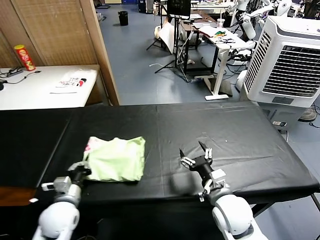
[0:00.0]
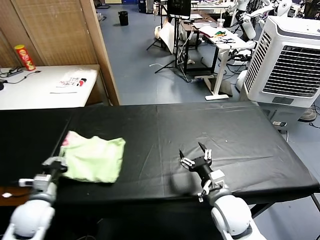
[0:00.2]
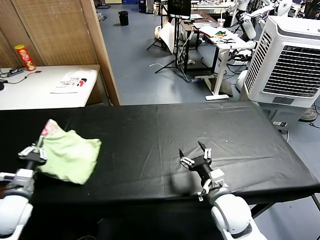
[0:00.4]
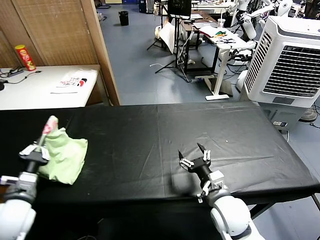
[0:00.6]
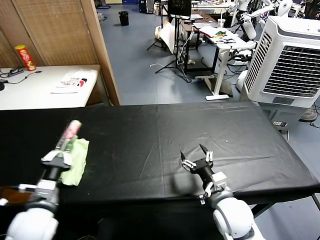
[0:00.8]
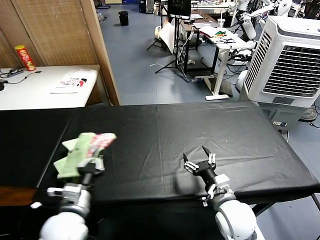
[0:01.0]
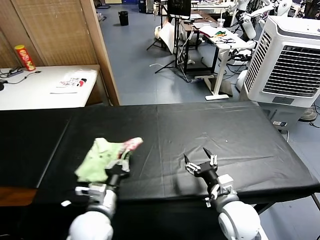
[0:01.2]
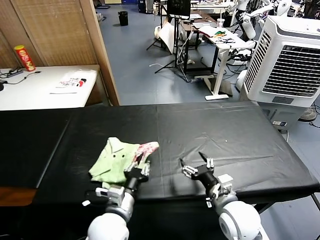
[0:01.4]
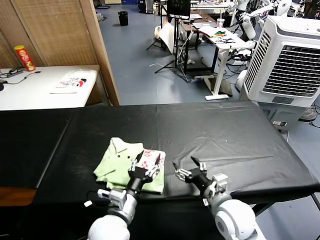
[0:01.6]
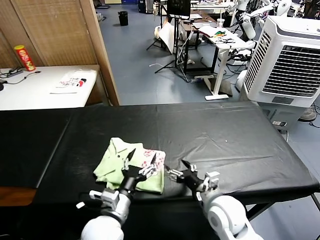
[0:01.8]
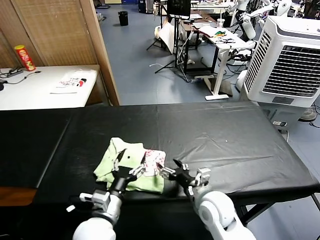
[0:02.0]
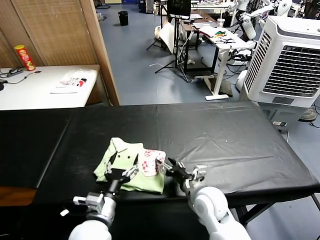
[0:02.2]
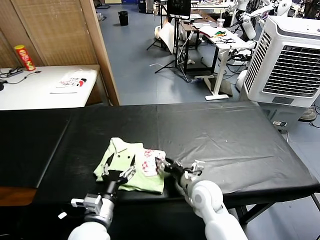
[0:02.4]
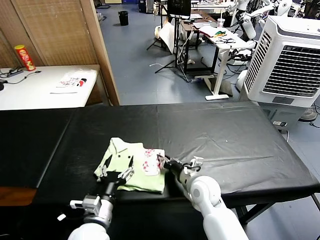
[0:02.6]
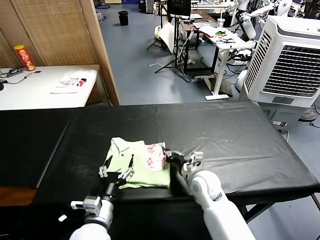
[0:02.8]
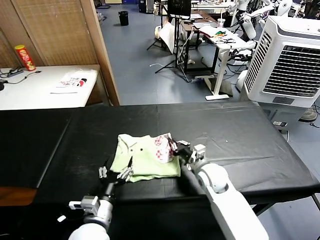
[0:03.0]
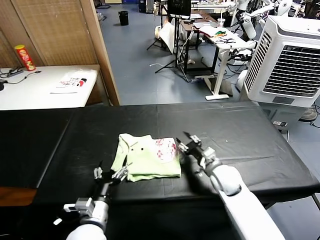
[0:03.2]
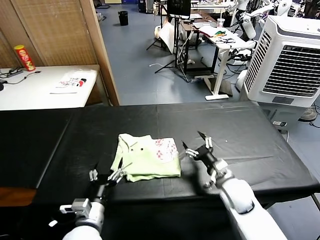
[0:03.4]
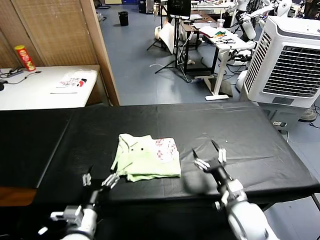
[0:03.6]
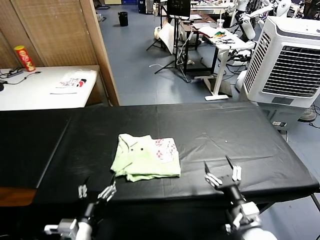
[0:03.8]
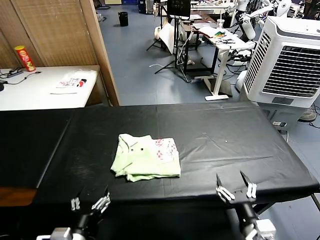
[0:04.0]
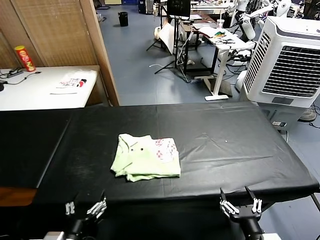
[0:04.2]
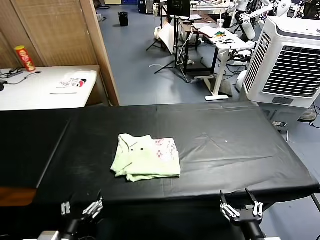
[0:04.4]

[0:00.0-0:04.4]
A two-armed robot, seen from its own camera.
Task of the whole recording: fold and organize the clothes.
Step, 0:01.6 to 0:03.0: Drag the clothes to the center of the table.
0:00.0 to 0:01.4: The left gripper moves to the right, about 15 cm.
0:01.4 to 0:03.0: The right gripper travels forward by about 15 cm, and closes up. Meanwhile the left gripper shifts by about 5 cm, and opens up.
0:03.0 to 0:04.4: The right gripper shifts about 30 cm backward, and opens, while the left gripper heads backward and to the left, covering some 10 cm.
